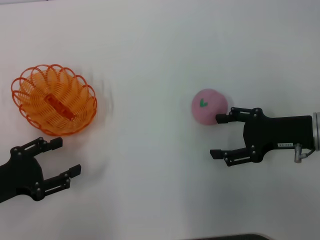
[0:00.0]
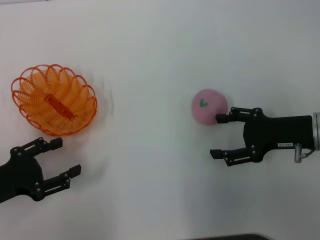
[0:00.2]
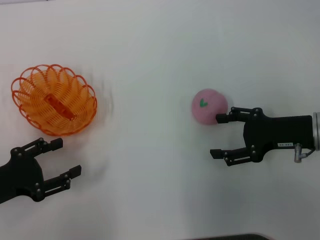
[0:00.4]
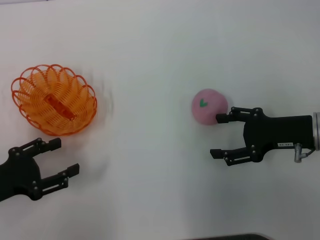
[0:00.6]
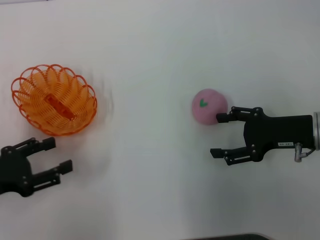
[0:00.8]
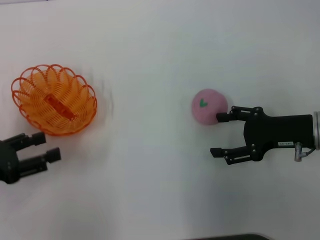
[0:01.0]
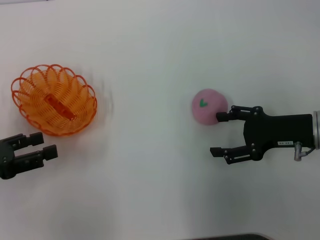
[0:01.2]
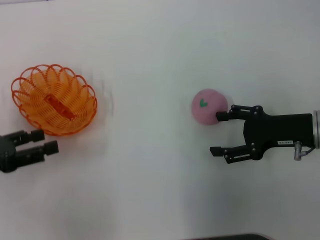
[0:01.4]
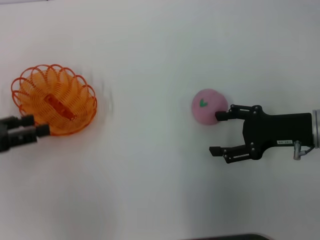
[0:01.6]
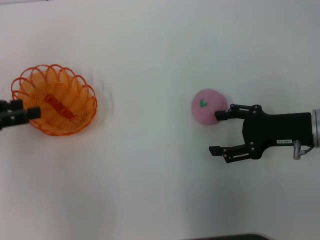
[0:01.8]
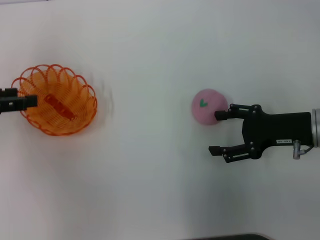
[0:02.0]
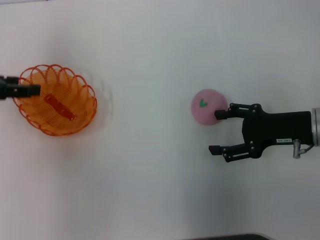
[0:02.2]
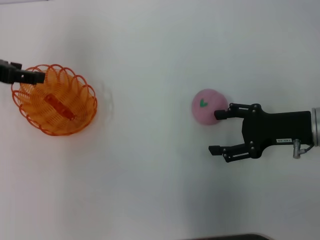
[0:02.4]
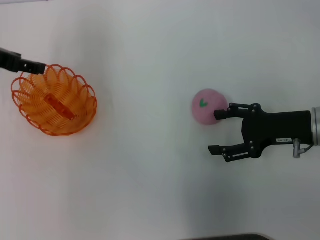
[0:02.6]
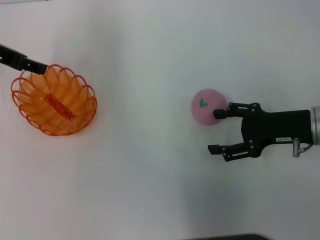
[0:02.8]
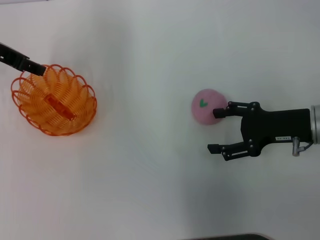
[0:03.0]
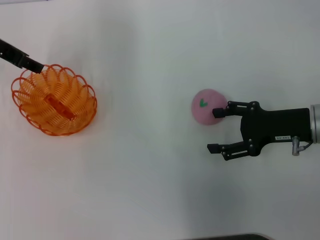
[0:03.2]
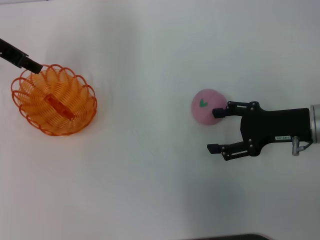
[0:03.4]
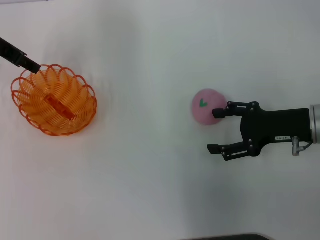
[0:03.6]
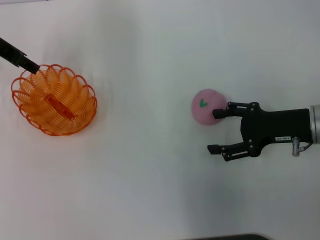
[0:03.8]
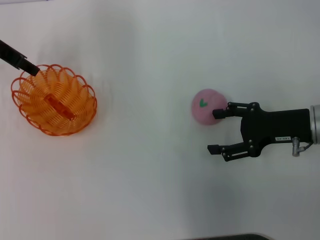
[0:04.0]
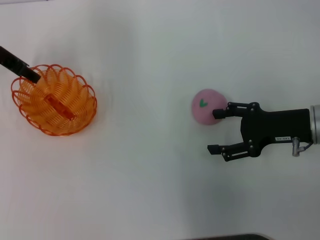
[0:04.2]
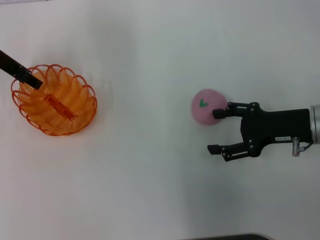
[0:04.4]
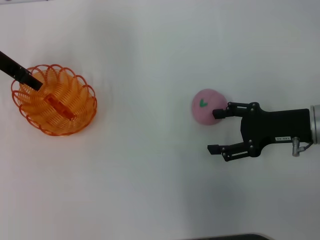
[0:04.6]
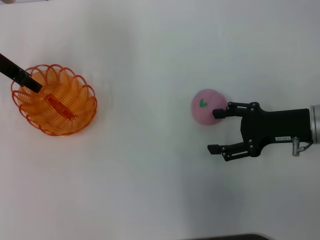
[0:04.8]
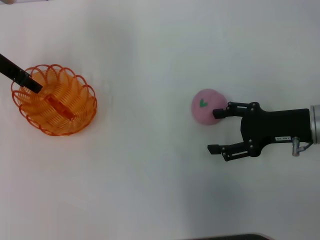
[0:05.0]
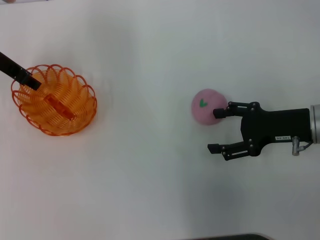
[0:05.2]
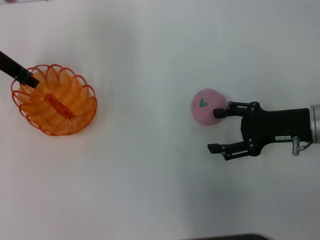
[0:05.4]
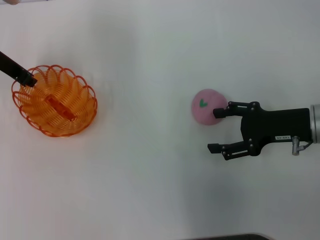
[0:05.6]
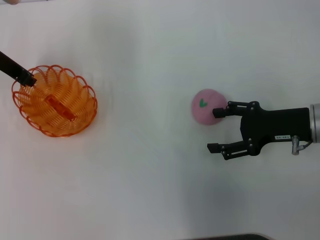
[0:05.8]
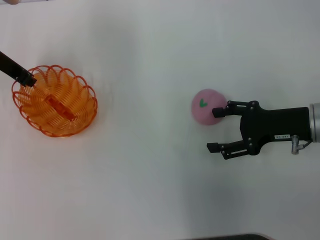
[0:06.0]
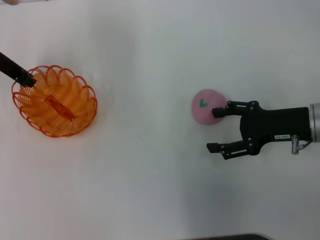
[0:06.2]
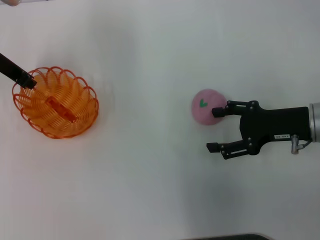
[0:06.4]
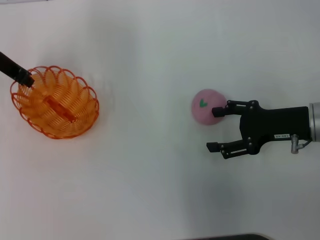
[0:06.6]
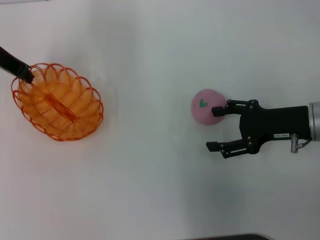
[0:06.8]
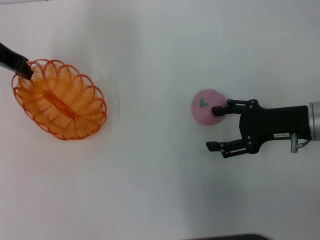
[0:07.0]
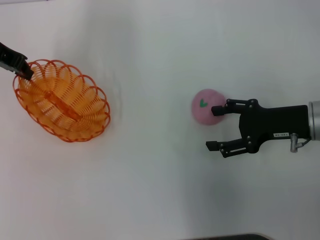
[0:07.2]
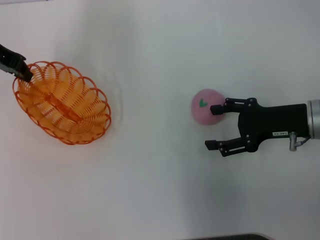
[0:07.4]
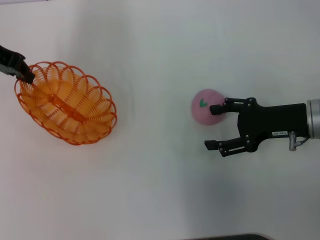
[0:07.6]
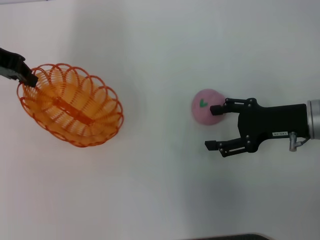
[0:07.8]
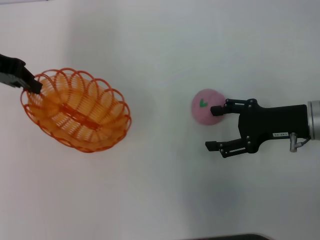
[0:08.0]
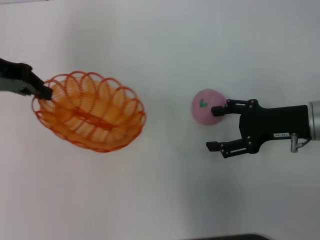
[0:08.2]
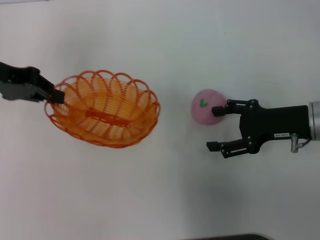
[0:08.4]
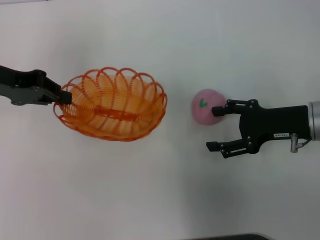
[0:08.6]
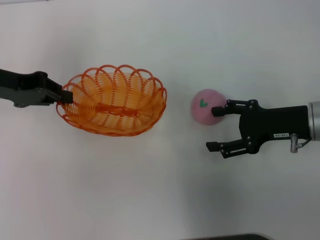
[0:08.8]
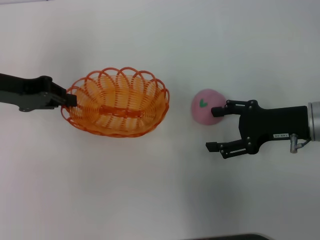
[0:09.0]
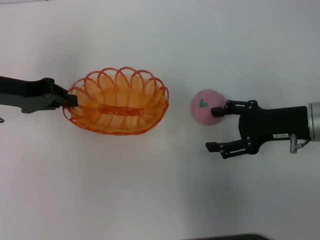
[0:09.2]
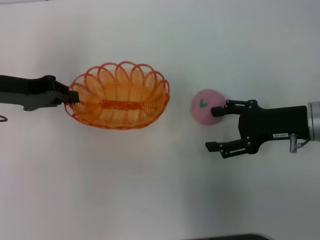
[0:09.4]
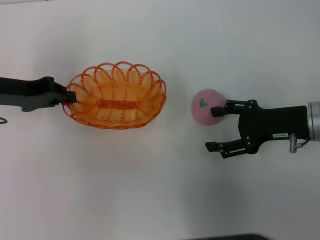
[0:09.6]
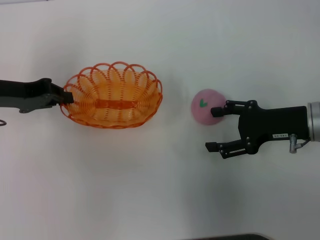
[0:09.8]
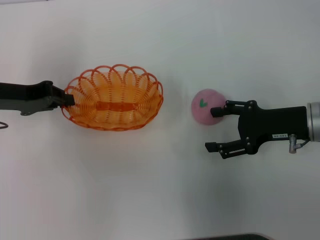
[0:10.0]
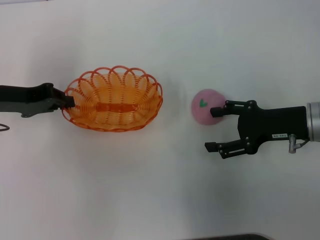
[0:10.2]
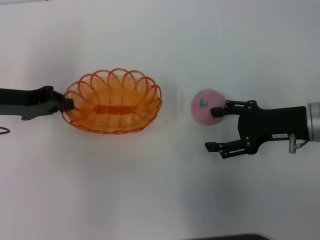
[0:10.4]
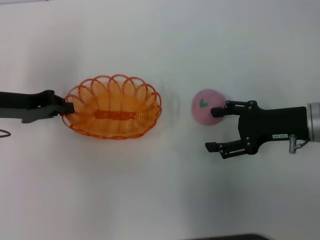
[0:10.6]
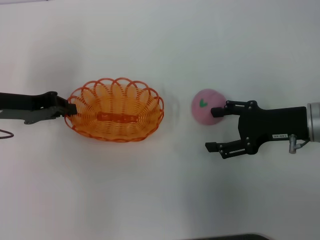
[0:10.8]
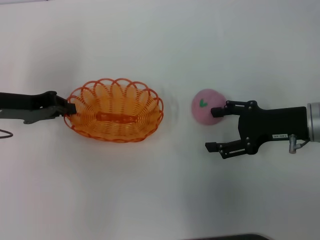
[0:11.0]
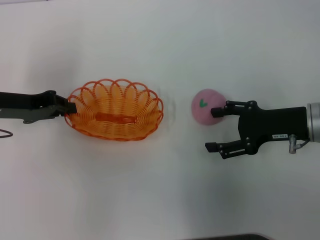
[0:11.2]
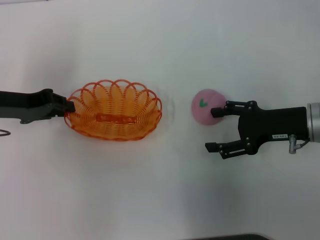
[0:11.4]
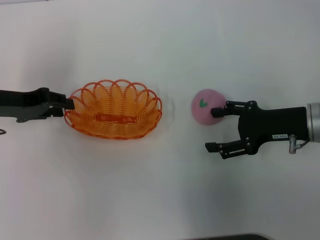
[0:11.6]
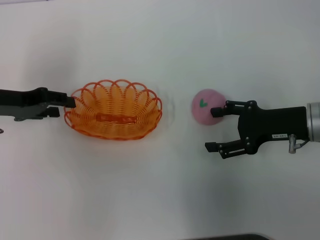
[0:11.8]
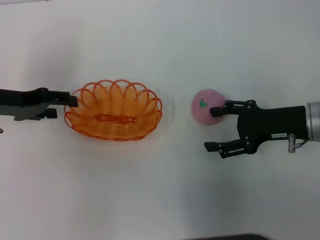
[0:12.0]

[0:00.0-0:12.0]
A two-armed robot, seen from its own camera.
Step, 0:00.0 to 0:07.8: Pick up the basket with the left gripper.
0:00.0 to 0:01.6: The left gripper is displaced upward and forward by approximately 10 cm.
0:01.6 to 0:03.0: The left gripper goes about 20 cm forward, upward and to the right.
0:03.0 to 0:04.4: The grippers move only a little.
0:04.4 to 0:06.0: The left gripper closes up.
0:06.0 to 0:07.6: The left gripper heads upward, covering approximately 5 cm.
0:07.6 to 0:09.0: The left gripper is displaced downward and backward by approximately 10 cm.
0:09.0 to 0:10.4: The grippers move only a little.
0:10.4 to 0:12.0: The left gripper opens.

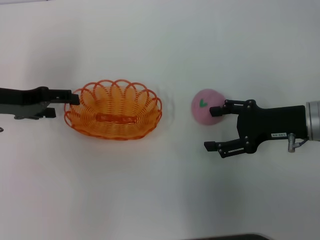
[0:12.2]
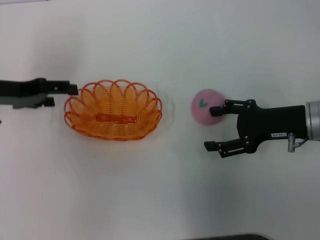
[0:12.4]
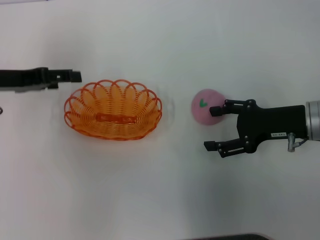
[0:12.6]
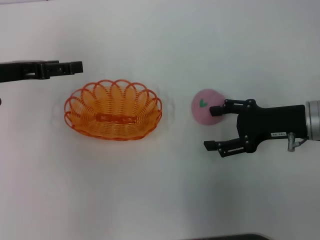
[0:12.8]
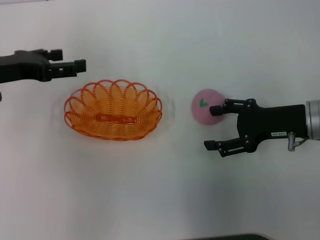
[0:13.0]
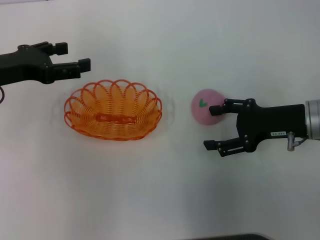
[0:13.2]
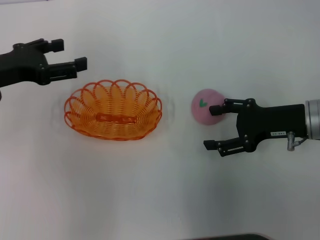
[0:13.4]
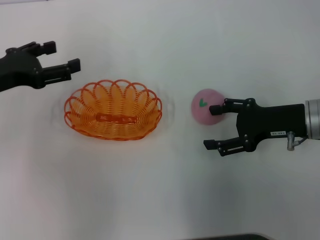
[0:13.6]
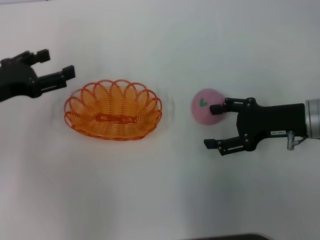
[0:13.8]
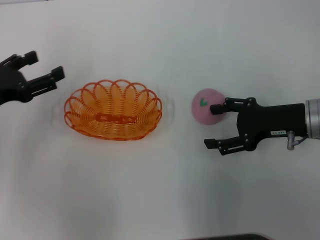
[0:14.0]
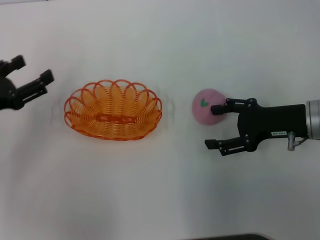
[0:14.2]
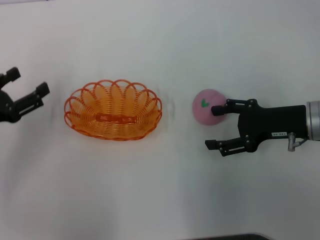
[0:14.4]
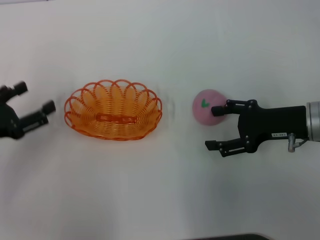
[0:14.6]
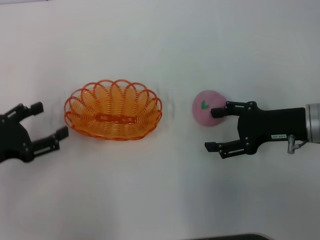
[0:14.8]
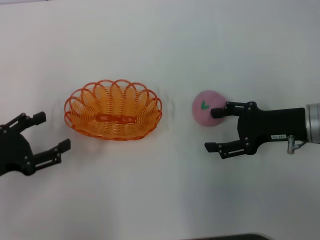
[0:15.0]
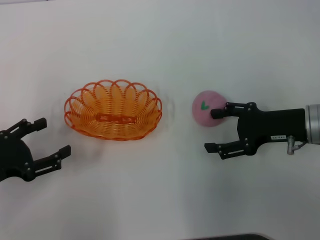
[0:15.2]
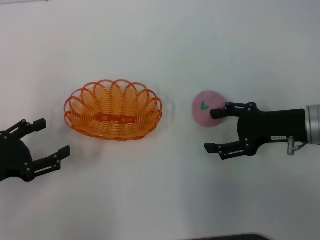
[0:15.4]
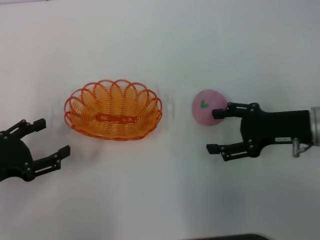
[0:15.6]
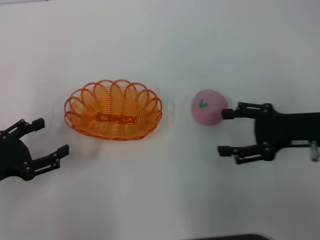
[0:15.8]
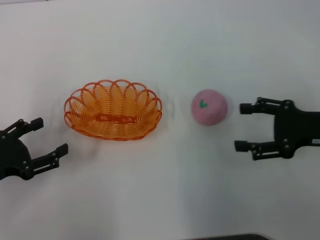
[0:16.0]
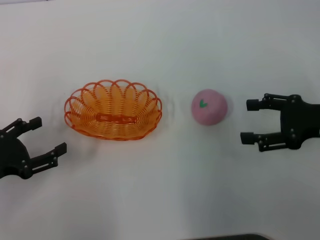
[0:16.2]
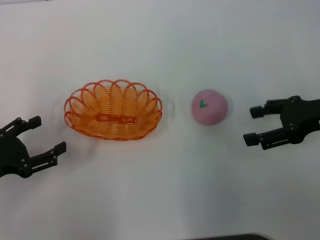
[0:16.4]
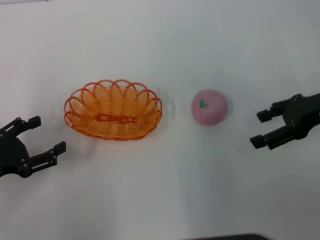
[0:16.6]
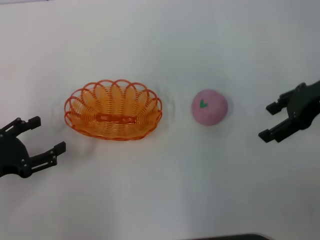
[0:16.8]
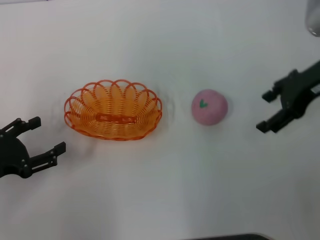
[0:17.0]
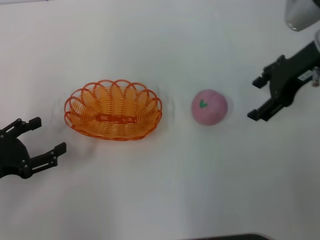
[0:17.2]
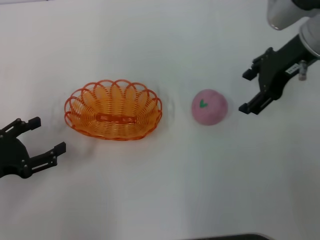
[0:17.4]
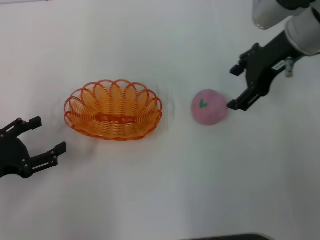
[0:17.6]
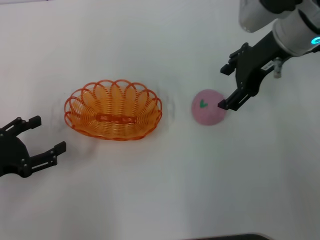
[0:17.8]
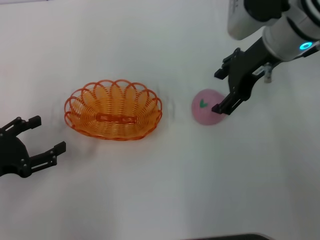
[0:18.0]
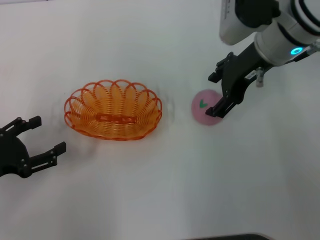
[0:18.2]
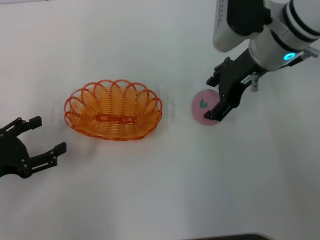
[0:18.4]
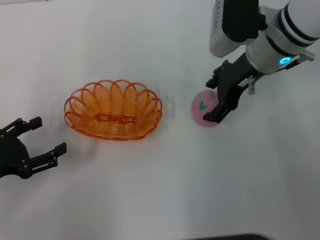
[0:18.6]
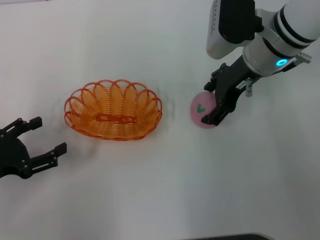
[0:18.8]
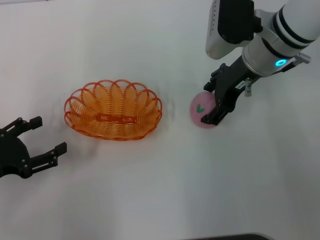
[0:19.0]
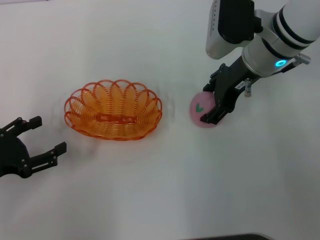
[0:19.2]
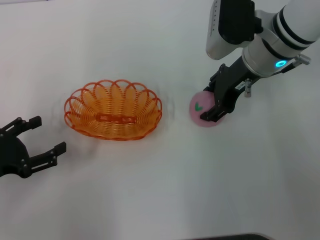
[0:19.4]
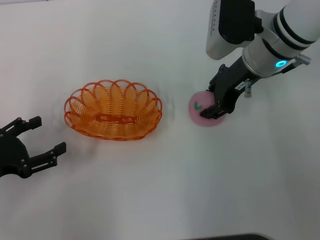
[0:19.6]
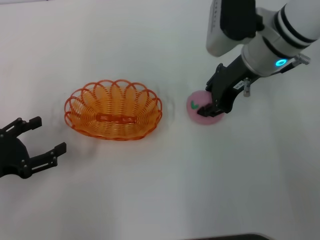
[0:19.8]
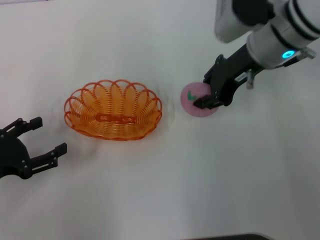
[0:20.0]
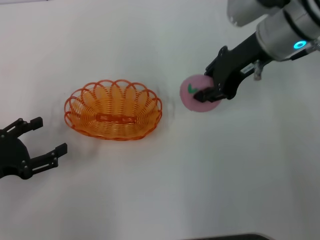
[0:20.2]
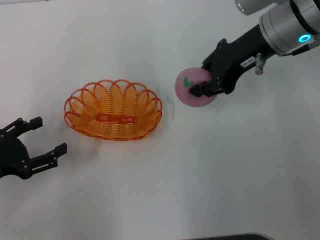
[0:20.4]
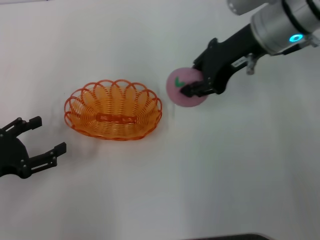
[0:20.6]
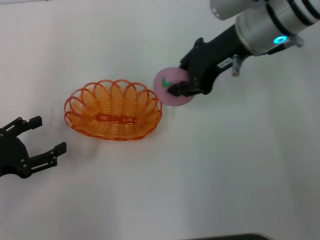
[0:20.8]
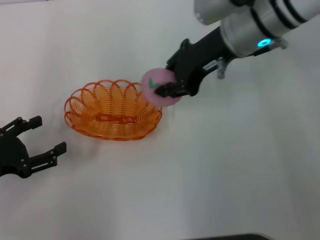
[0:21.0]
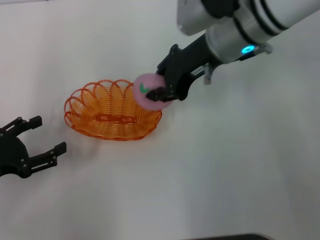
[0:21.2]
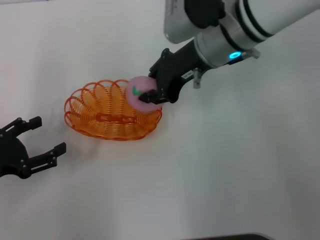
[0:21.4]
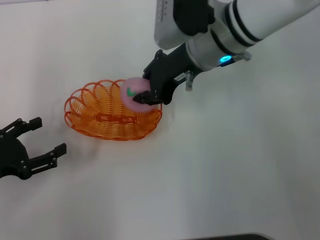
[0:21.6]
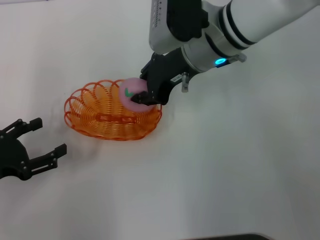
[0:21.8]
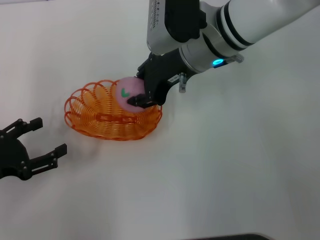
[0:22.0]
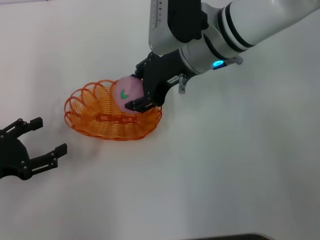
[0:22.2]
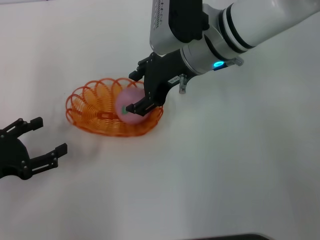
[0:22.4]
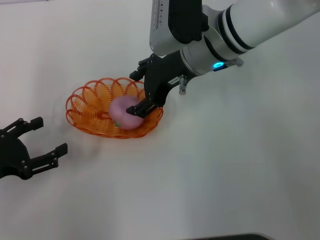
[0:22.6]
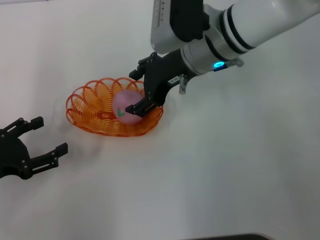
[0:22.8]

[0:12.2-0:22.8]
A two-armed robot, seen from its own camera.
Step, 0:14.2 to 0:20.4: Pick up the peach with the right gripper.
0:13.8 to 0:15.2: The left gripper moves backward and downward, about 10 cm.
0:15.2 to 0:16.8: The right gripper travels upward by some 10 cm.
0:16.8 to 0:18.2: The right gripper travels to the left by roughly 10 cm.
0:18.2 to 0:19.8: The right gripper closes its fingers.
0:19.8 to 0:21.2: The right gripper ends up about 5 cm from where it was, and closes its fingers.
0:21.2 to 0:22.8: The right gripper opens.
